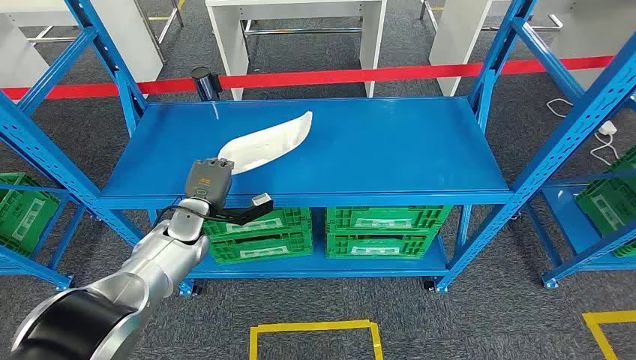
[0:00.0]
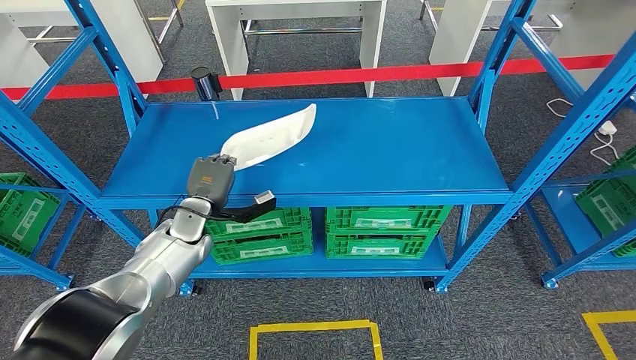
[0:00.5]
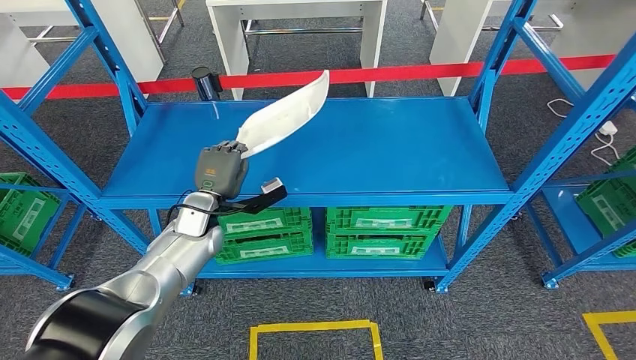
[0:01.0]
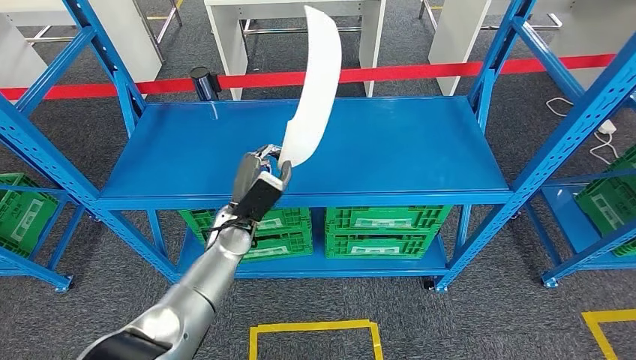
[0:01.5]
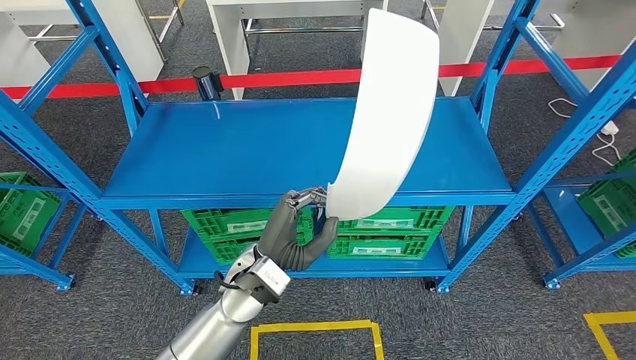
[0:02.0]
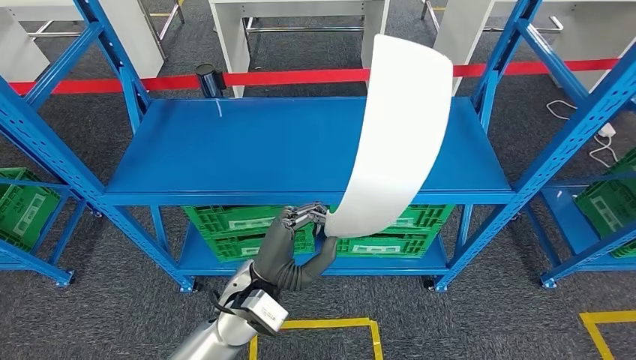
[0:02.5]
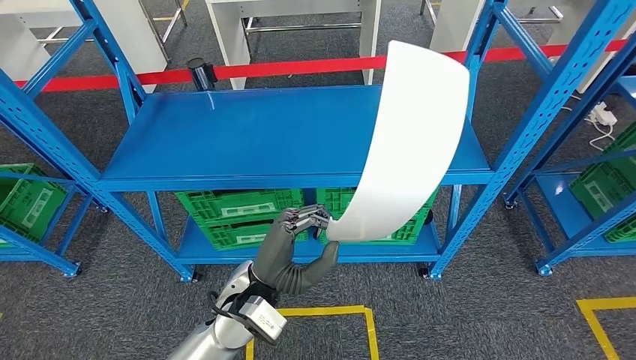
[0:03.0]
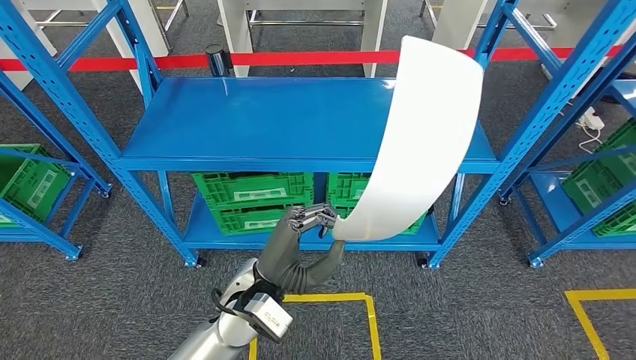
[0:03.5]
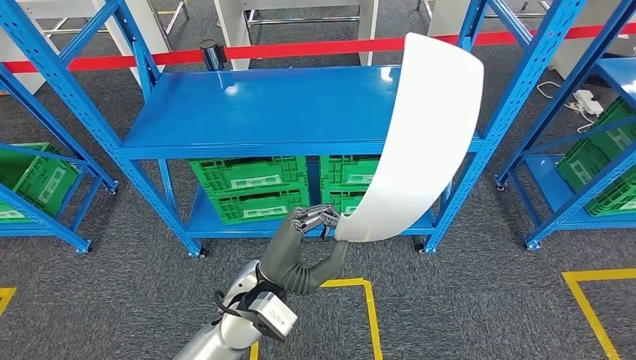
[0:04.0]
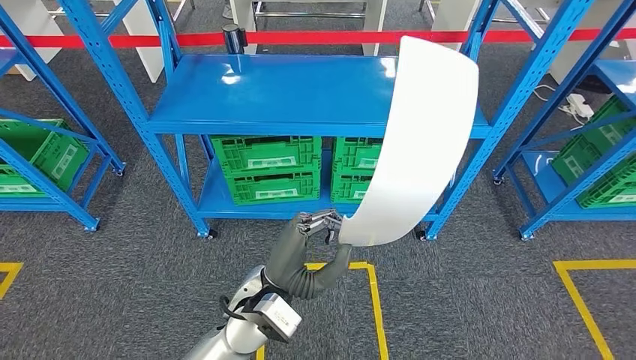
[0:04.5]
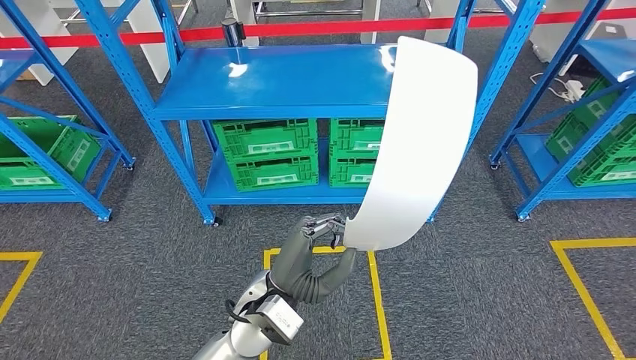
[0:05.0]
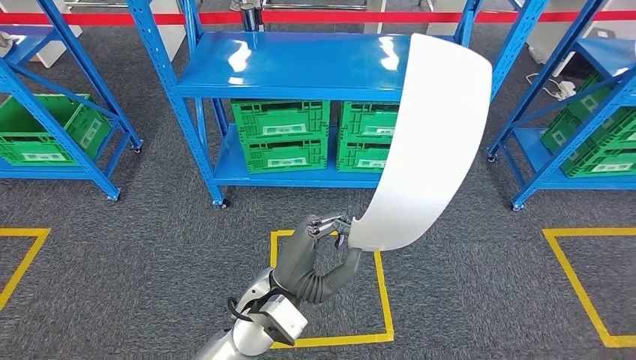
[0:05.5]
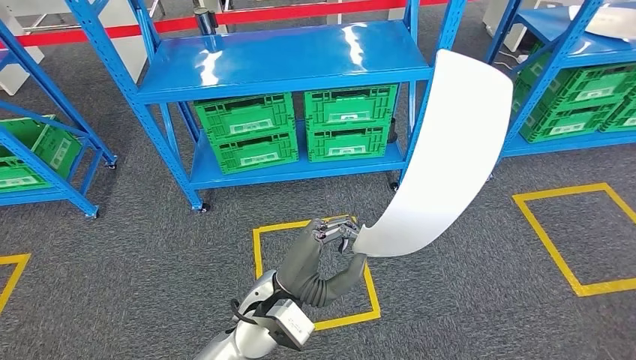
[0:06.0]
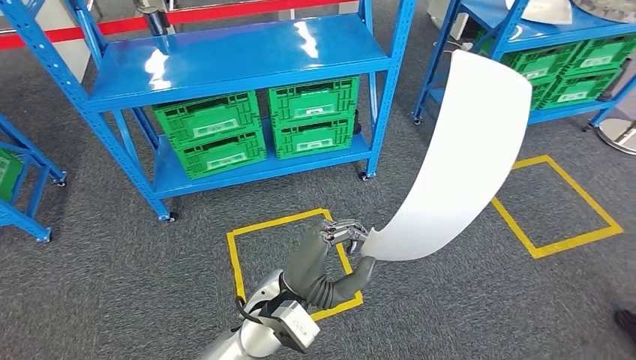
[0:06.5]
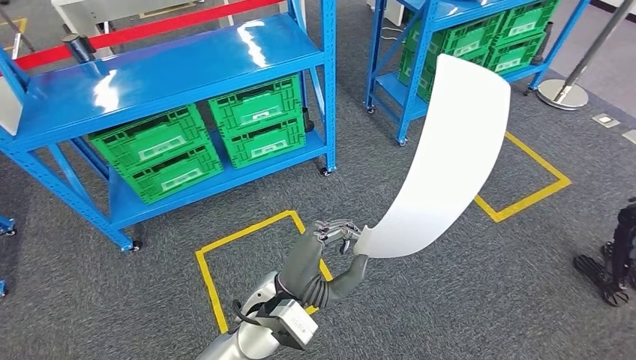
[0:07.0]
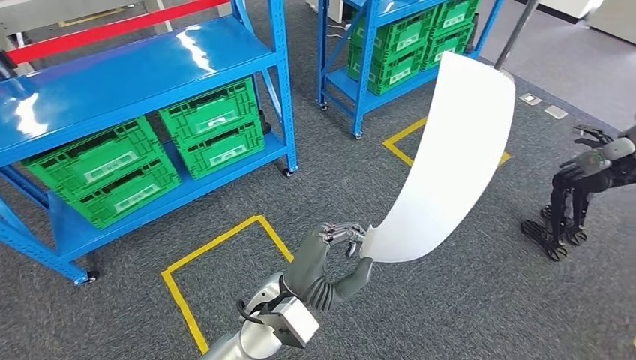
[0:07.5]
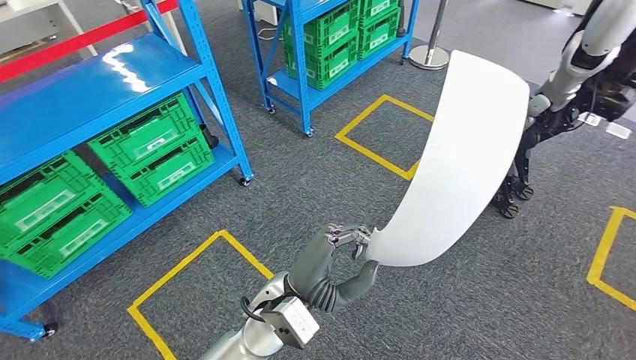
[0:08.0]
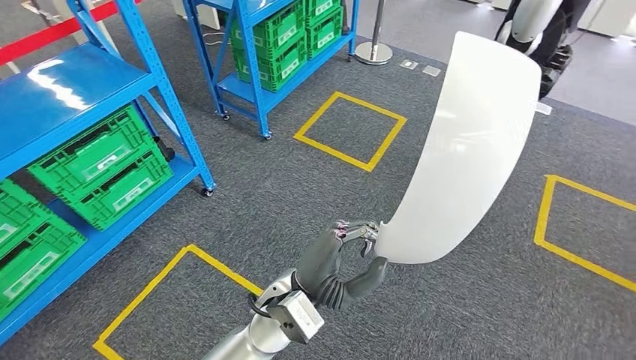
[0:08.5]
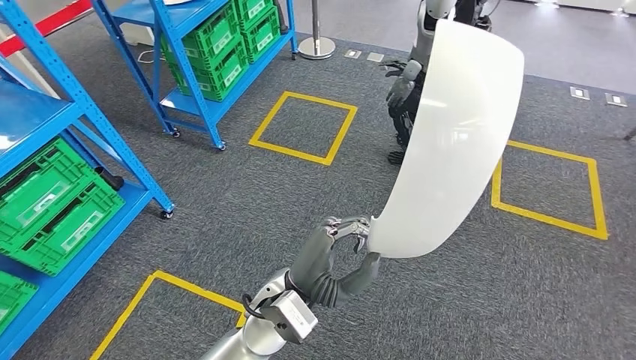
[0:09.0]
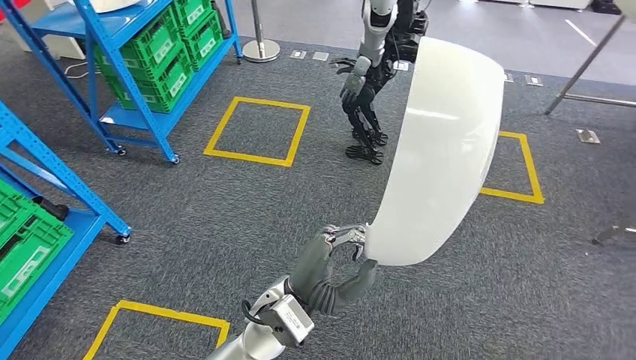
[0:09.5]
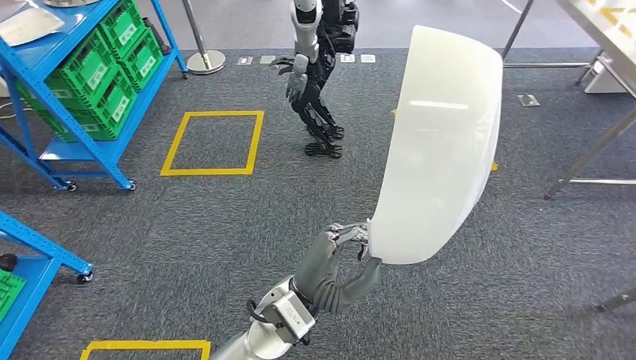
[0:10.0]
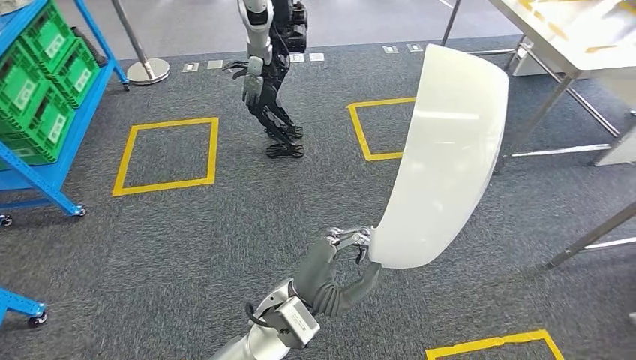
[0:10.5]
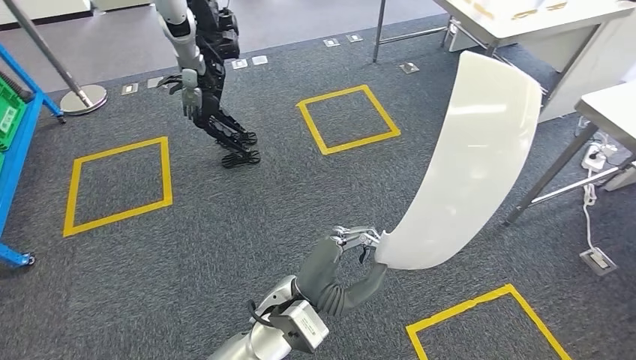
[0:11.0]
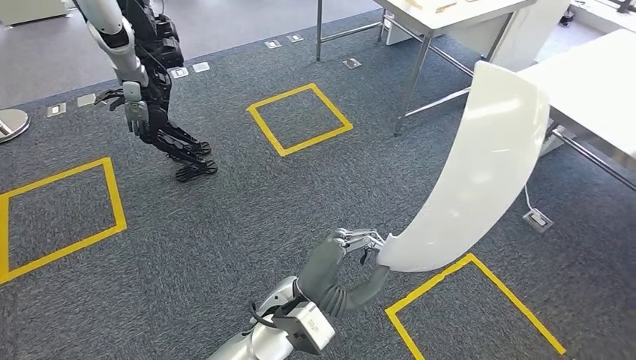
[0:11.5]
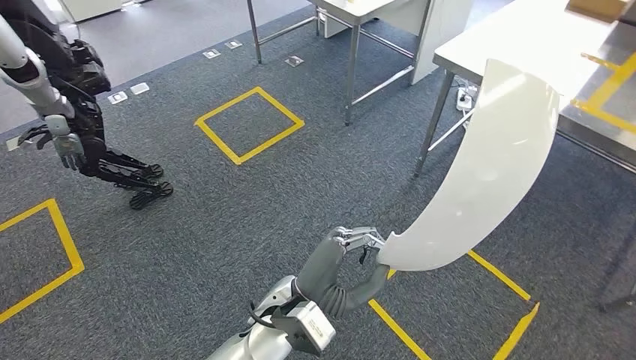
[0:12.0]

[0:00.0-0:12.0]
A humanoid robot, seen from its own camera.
Step, 0:00.0 to 0:01.5: Pick up the small component from the shelf.

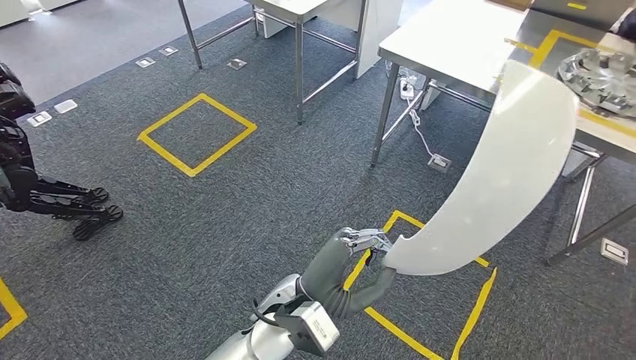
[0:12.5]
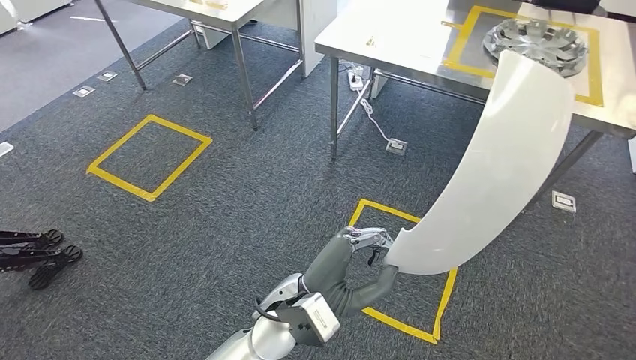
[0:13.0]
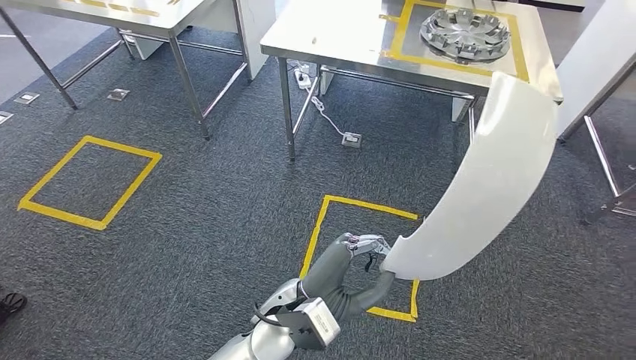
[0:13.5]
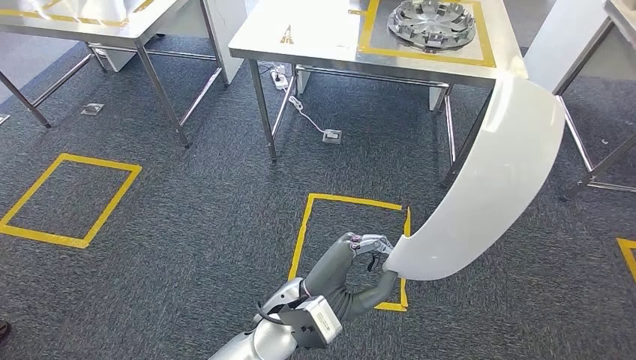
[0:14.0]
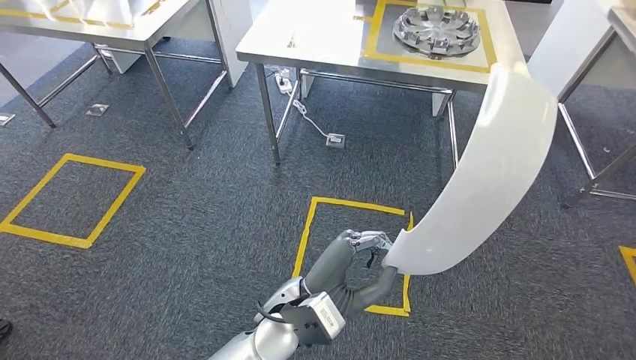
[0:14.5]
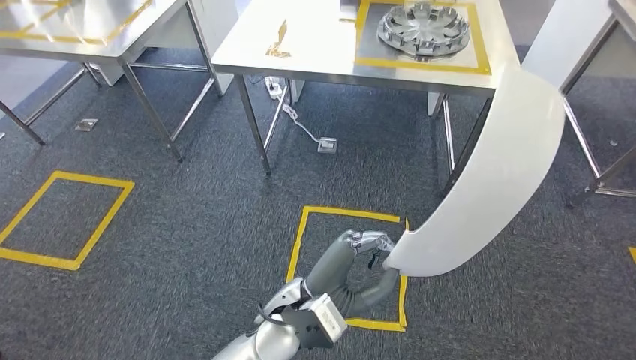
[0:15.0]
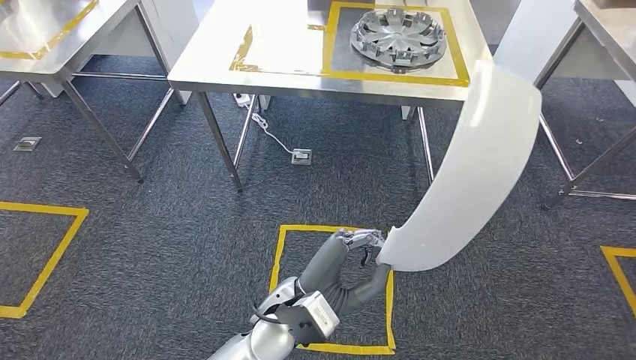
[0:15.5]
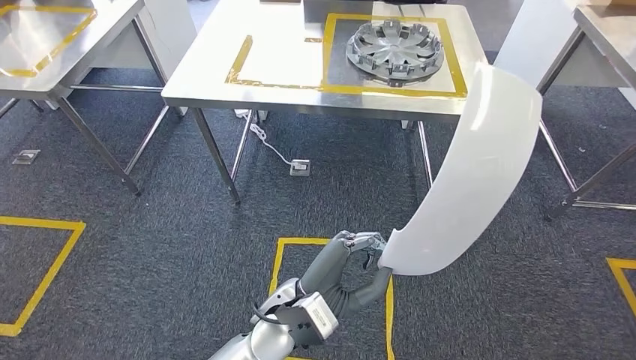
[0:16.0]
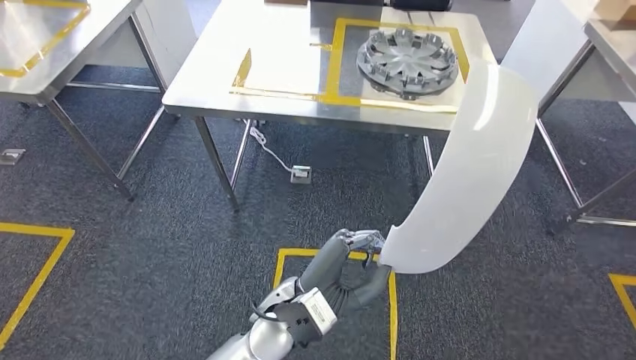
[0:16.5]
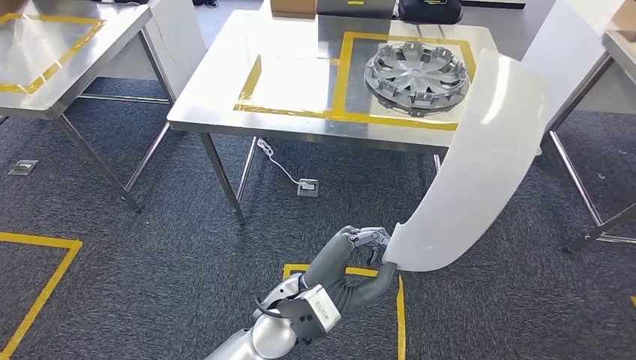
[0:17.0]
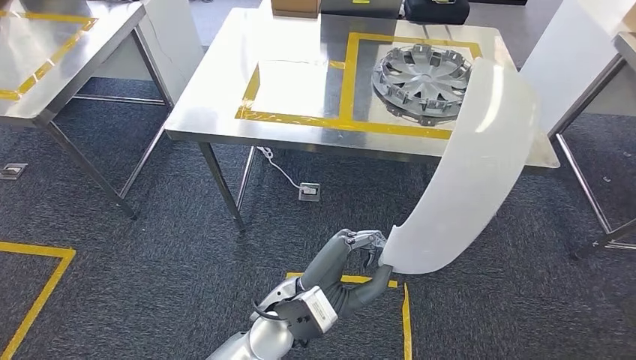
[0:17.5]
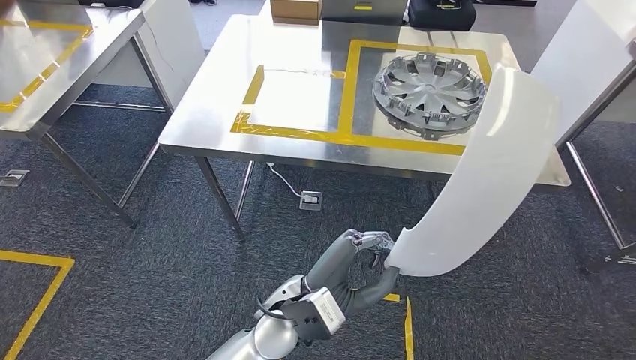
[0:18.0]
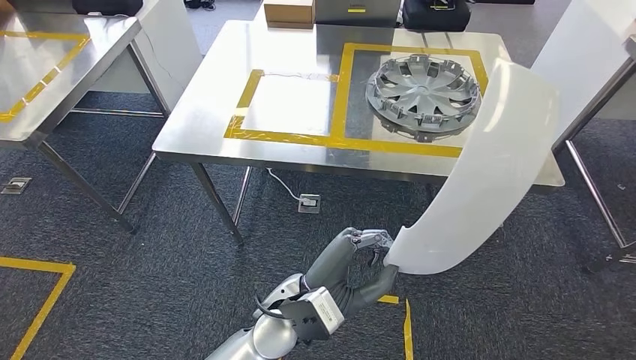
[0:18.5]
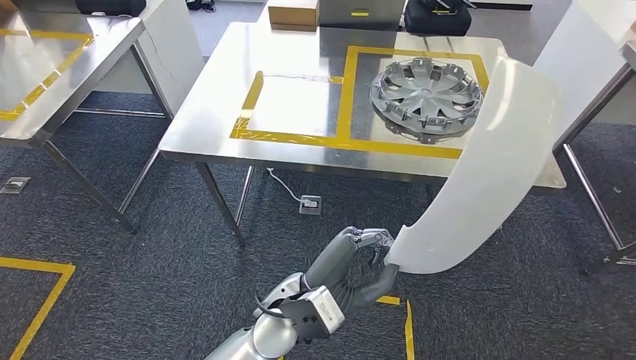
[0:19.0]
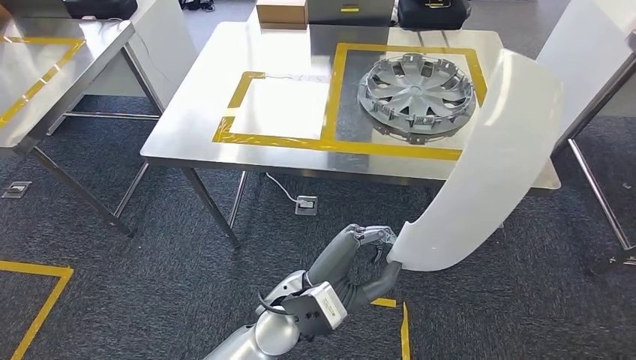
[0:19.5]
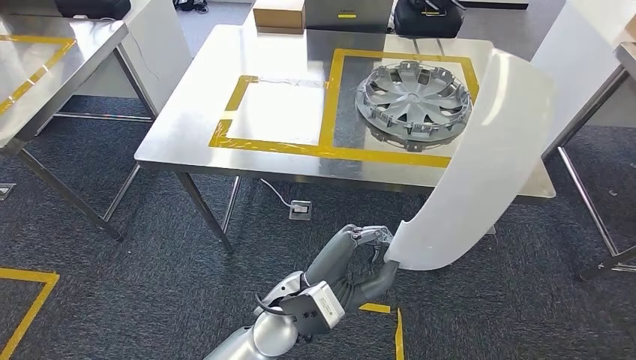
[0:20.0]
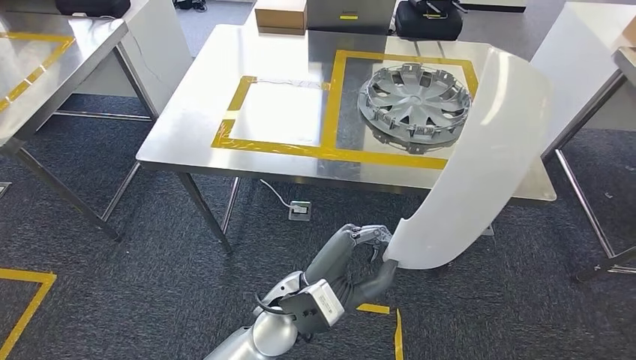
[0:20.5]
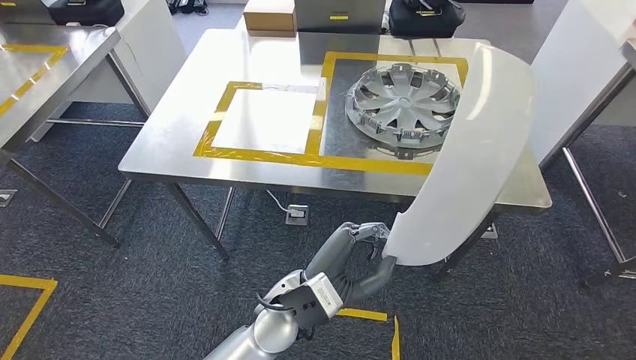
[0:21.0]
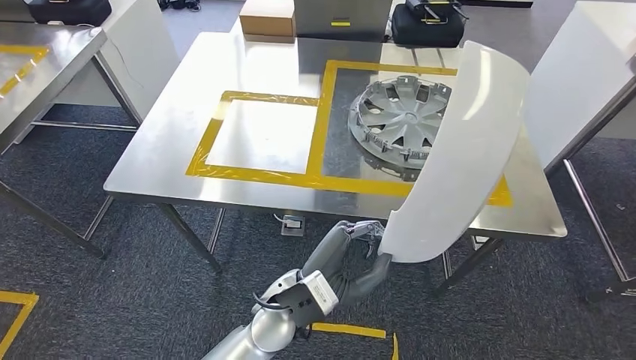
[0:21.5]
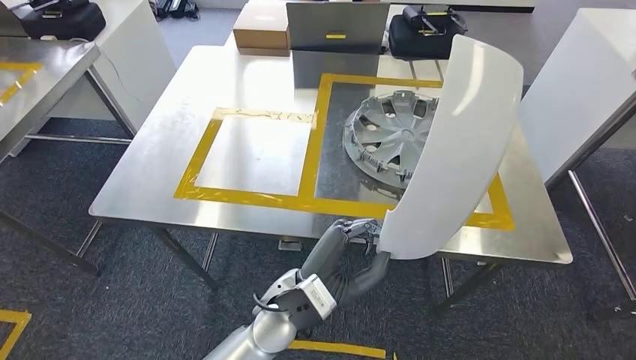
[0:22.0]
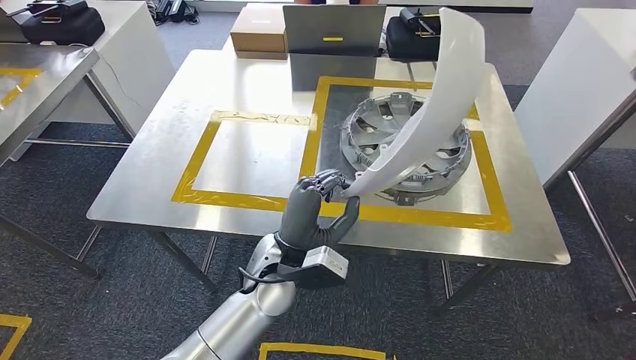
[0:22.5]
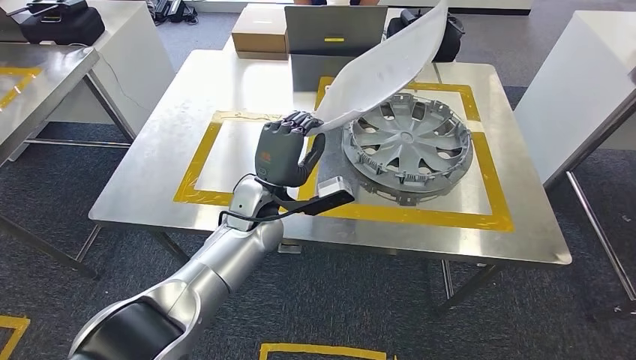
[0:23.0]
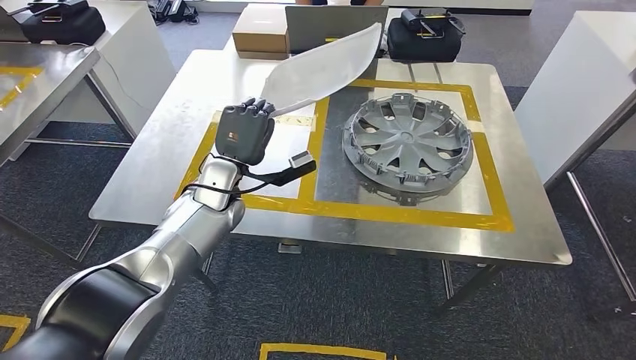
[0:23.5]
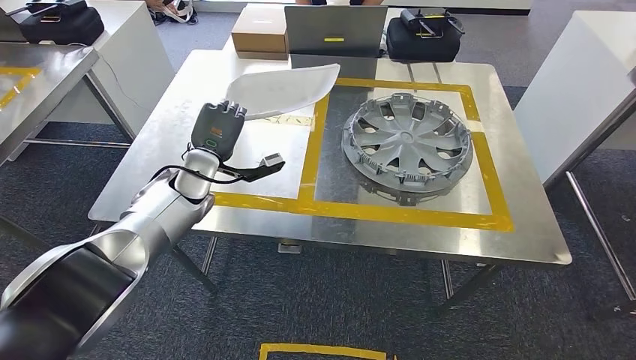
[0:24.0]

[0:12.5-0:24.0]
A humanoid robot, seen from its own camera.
Step, 0:12.5 to 0:22.0: Move the small component to the workbench.
